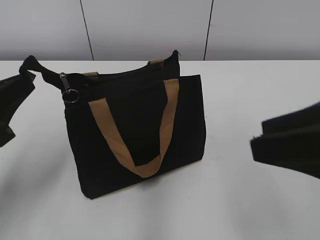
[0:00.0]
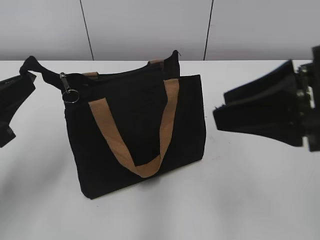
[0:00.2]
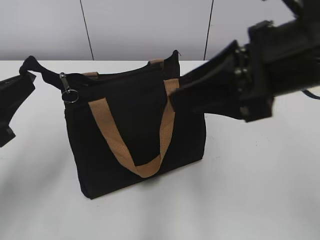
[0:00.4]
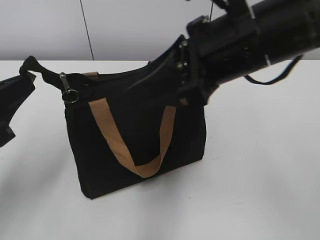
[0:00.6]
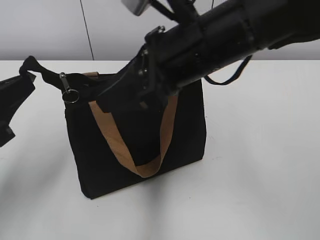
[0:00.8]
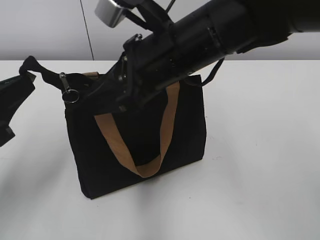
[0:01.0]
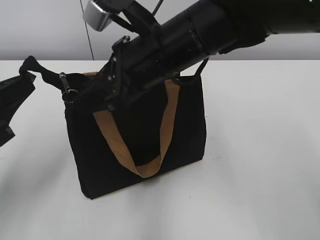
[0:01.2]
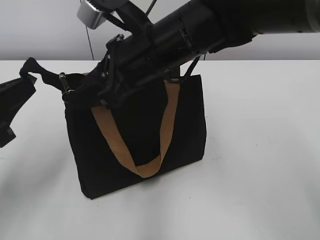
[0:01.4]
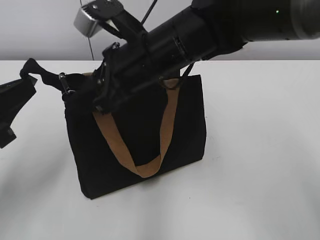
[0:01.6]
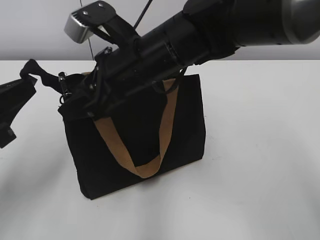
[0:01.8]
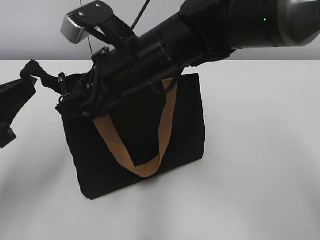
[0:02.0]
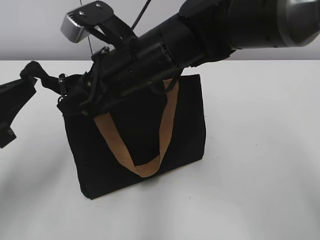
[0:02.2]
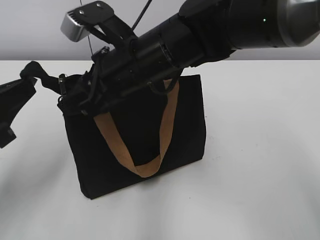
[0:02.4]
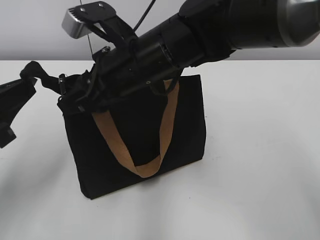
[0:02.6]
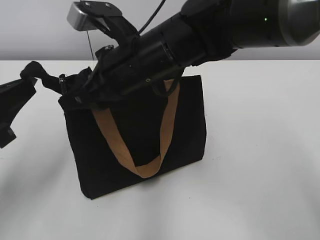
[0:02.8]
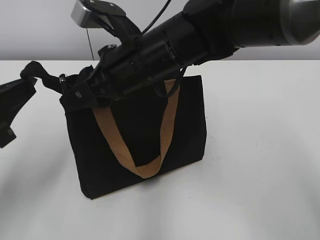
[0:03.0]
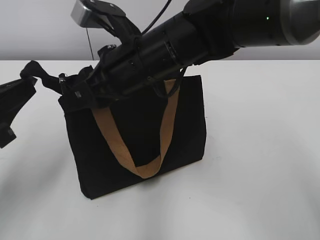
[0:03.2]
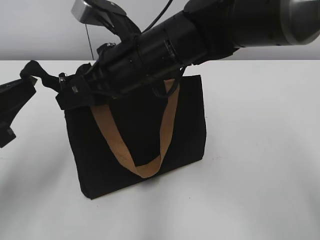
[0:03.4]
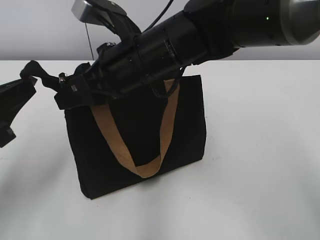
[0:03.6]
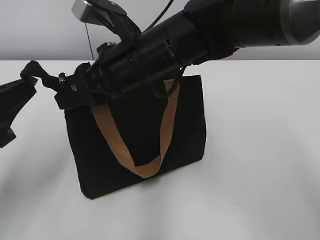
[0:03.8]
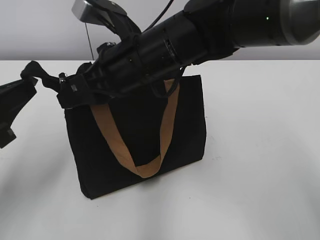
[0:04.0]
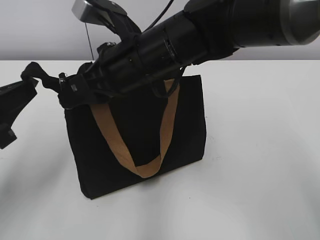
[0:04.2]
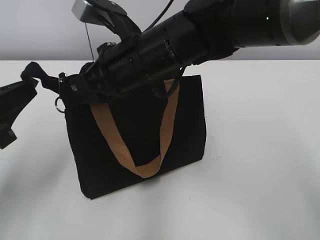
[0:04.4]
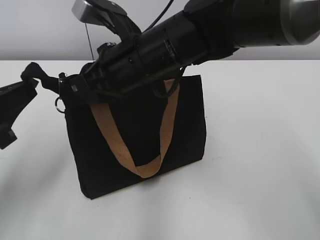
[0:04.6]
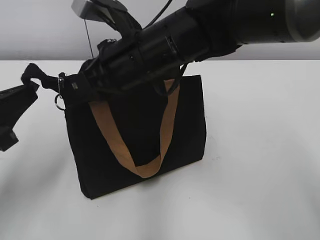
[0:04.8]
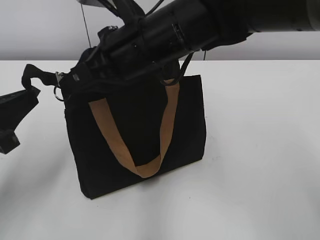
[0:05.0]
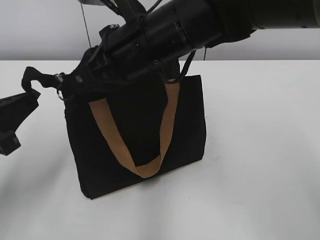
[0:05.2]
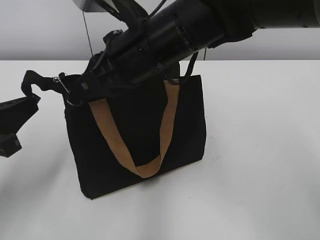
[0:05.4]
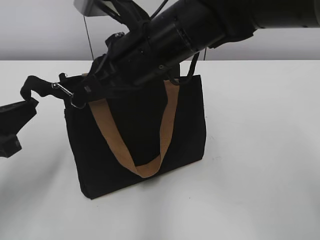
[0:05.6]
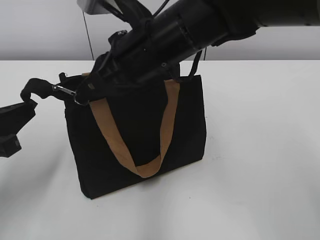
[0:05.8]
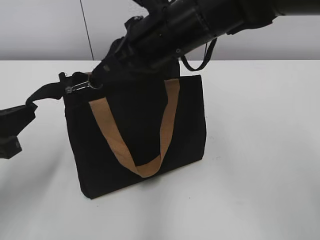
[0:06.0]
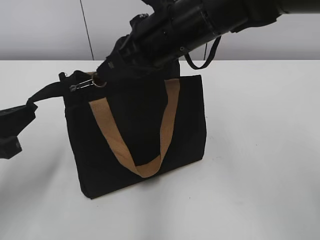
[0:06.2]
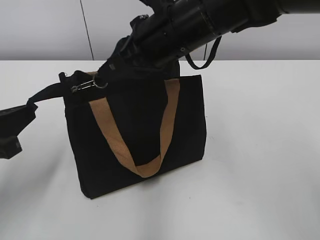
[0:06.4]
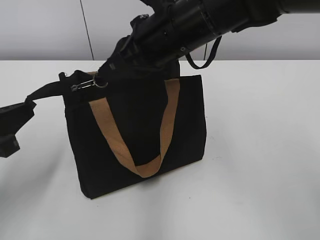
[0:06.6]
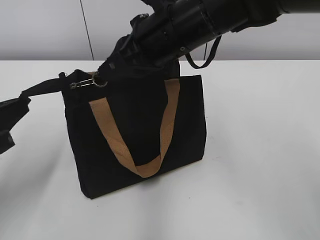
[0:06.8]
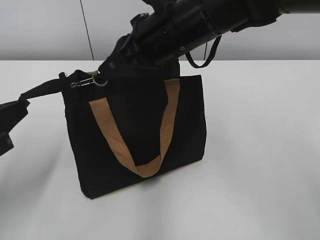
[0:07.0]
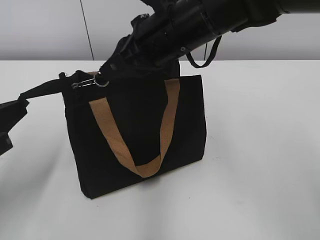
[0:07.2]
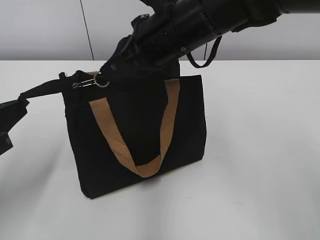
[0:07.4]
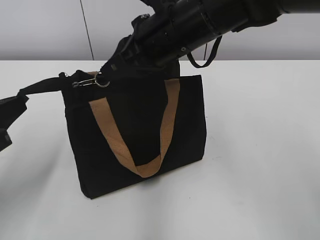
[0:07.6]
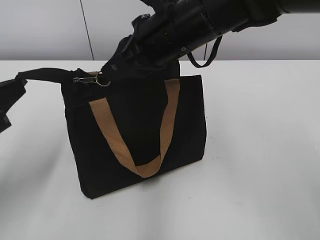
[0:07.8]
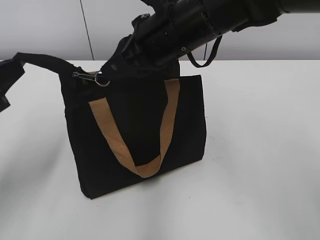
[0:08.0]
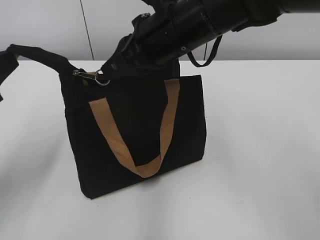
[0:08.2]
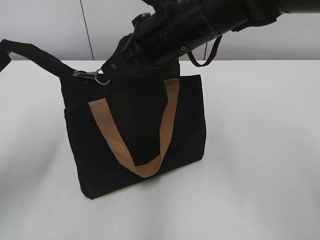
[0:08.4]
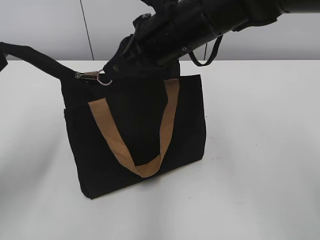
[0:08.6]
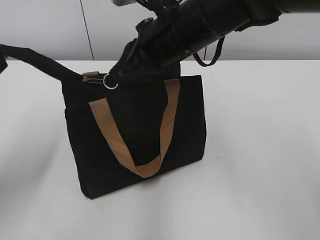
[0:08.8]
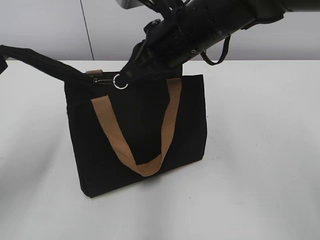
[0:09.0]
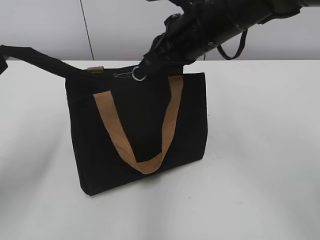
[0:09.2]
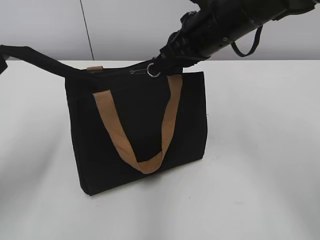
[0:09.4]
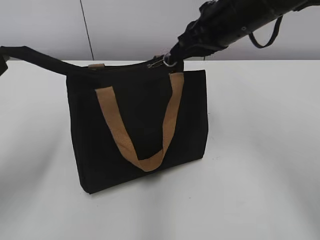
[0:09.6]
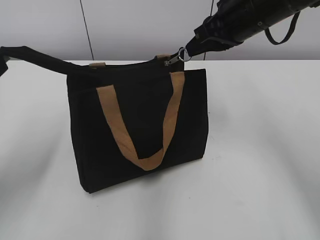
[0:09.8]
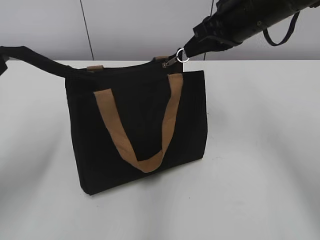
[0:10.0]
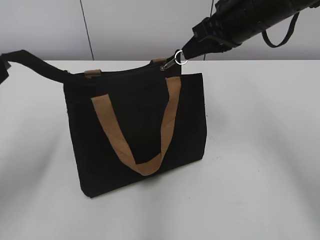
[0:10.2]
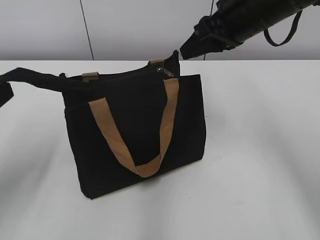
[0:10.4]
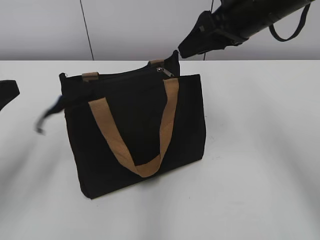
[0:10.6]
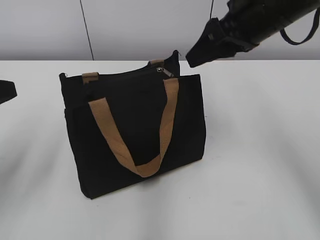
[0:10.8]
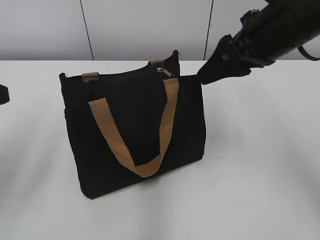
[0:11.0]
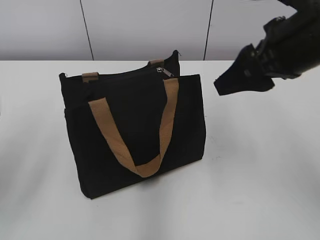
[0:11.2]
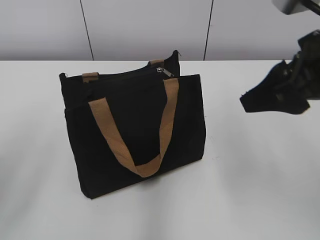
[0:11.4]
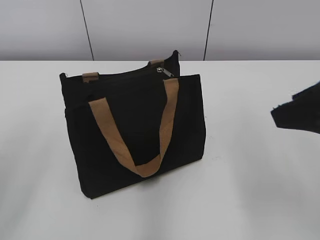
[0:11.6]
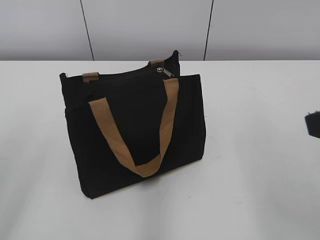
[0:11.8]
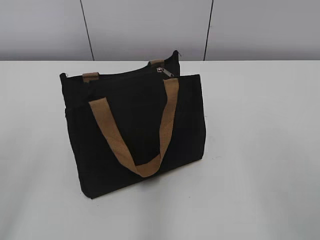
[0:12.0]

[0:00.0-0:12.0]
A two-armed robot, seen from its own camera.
Step, 0:00.0 to 0:10.2: Zip up the bag with your right hand.
Step, 0:10.4 to 0:10.6: Grab the zipper with your left hand.
0:00.0 to 0:01.6: The right gripper goes some 25 cm to the left and forward.
0:01.6 to 0:03.0: The grippers stay close to where they were, moving slightly.
0:03.0 to 0:04.4: The right gripper closes its fingers.
0:04.4 to 0:06.0: The grippers move only a little.
0:06.0 to 0:07.6: Neither gripper changes place.
0:07.6 to 0:09.0: The left gripper travels upward by roughly 5 cm.
0:09.0 to 0:10.4: The right gripper is displaced to the right by some 10 cm, and opens up.
0:10.4 to 0:12.0: The left gripper is displaced backward and upward by some 10 cm, and opens; the right gripper is displaced backward by approximately 25 cm, and opens.

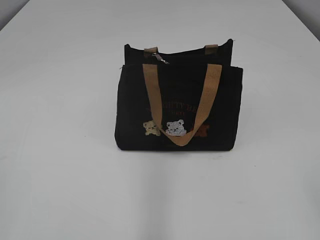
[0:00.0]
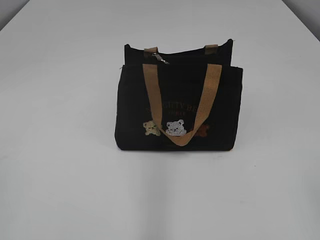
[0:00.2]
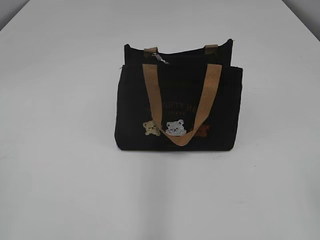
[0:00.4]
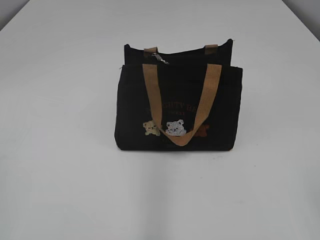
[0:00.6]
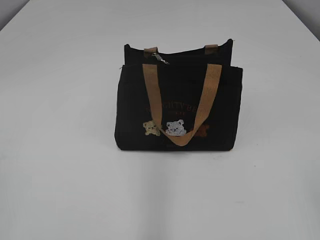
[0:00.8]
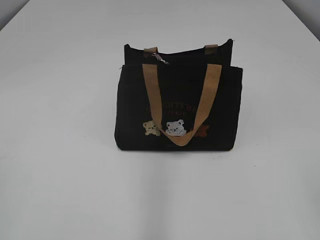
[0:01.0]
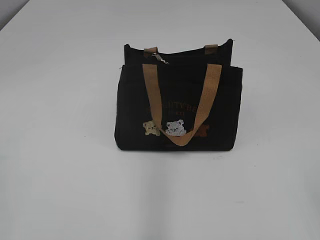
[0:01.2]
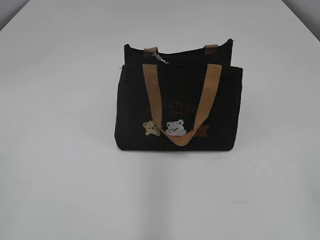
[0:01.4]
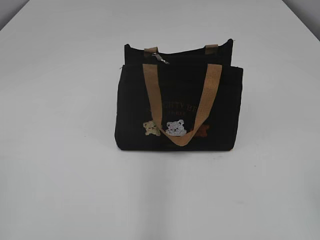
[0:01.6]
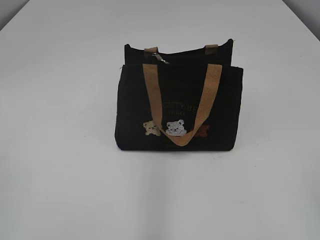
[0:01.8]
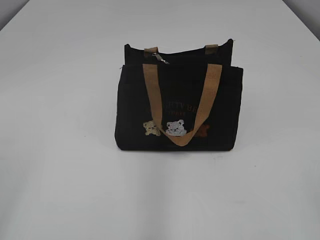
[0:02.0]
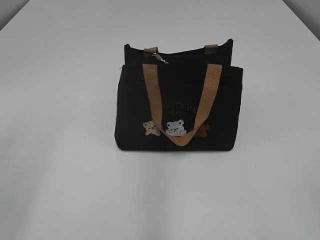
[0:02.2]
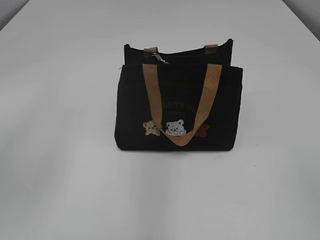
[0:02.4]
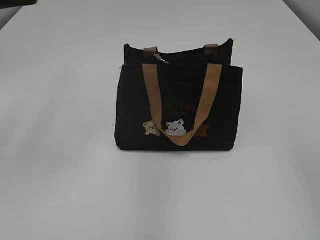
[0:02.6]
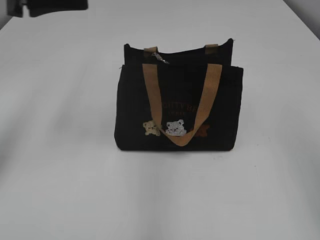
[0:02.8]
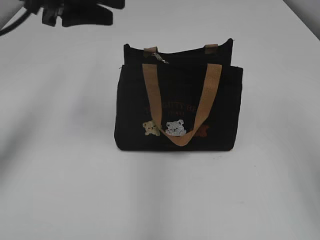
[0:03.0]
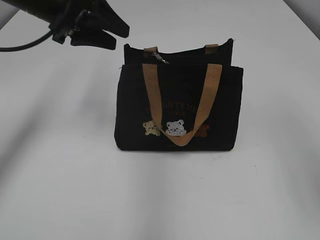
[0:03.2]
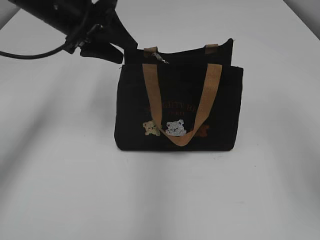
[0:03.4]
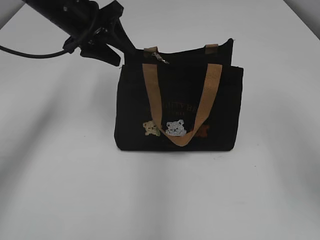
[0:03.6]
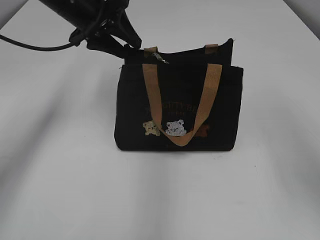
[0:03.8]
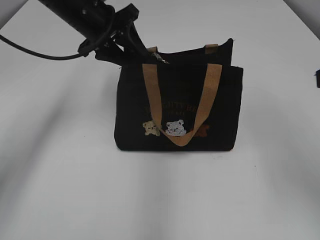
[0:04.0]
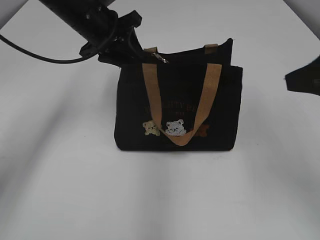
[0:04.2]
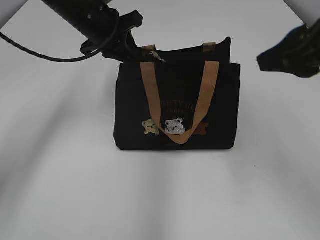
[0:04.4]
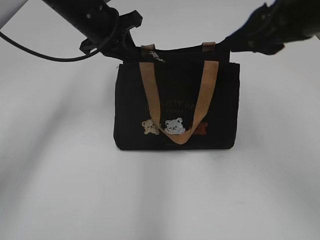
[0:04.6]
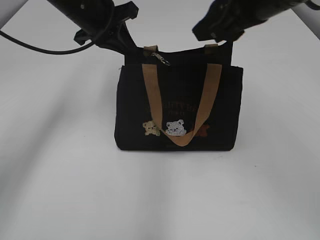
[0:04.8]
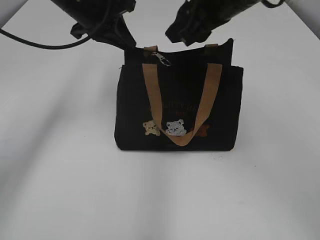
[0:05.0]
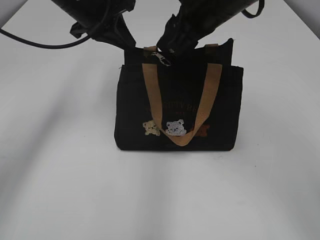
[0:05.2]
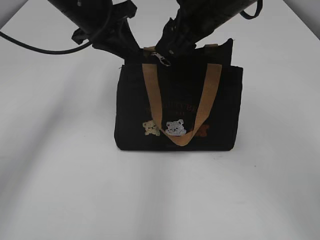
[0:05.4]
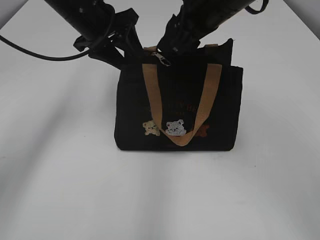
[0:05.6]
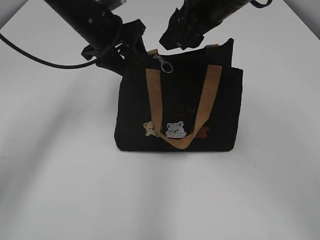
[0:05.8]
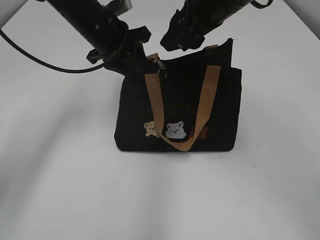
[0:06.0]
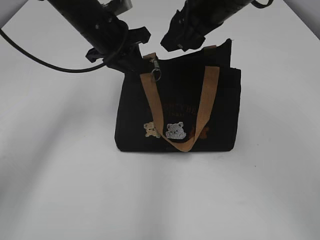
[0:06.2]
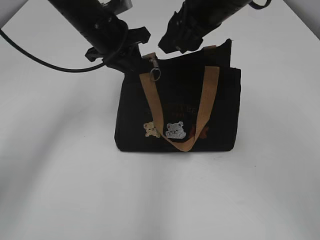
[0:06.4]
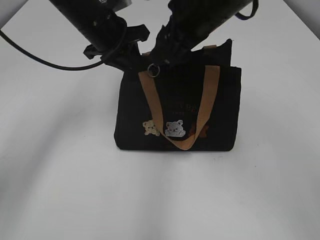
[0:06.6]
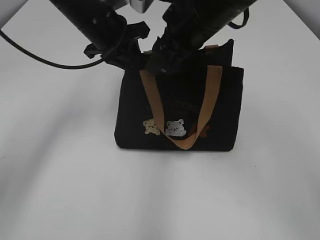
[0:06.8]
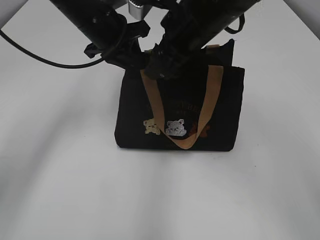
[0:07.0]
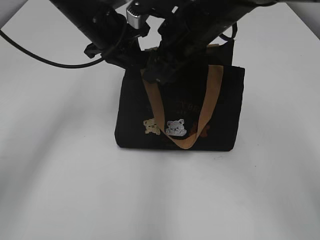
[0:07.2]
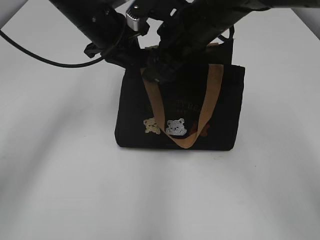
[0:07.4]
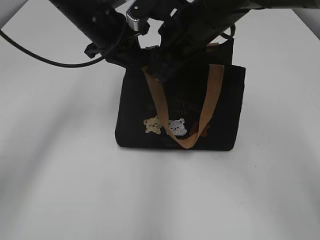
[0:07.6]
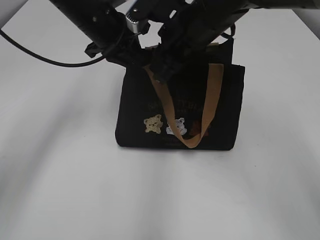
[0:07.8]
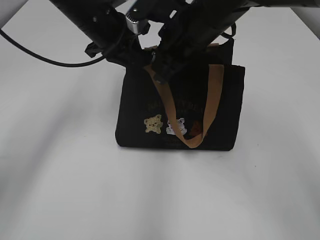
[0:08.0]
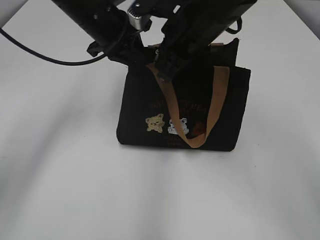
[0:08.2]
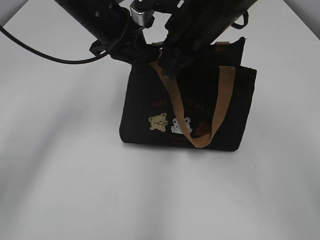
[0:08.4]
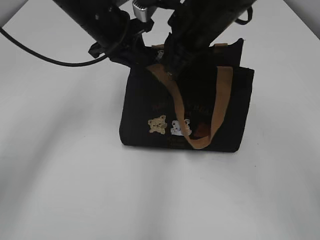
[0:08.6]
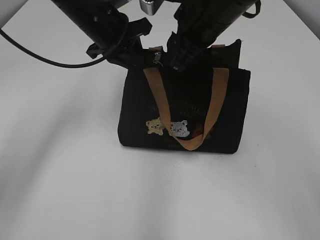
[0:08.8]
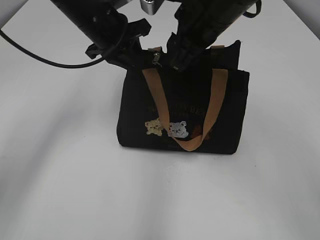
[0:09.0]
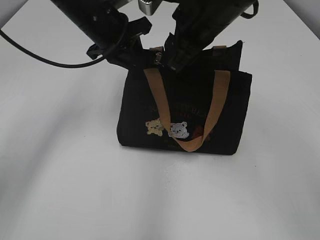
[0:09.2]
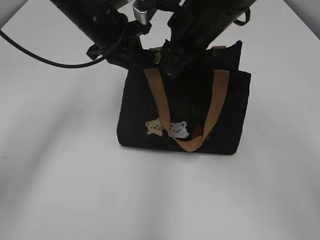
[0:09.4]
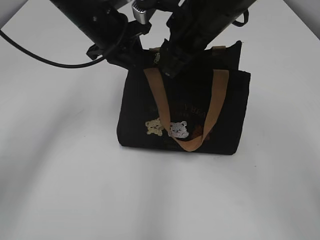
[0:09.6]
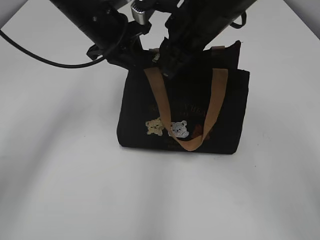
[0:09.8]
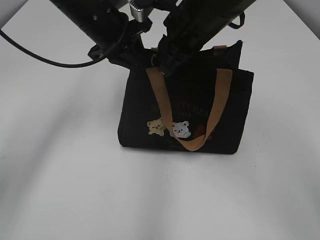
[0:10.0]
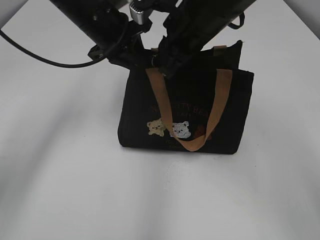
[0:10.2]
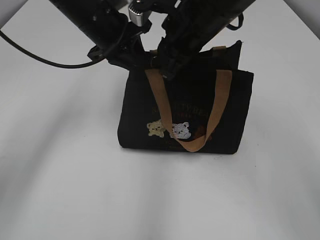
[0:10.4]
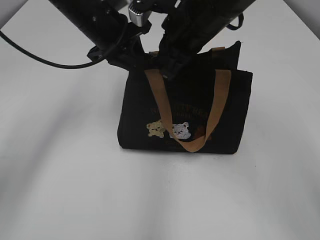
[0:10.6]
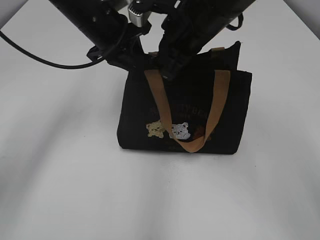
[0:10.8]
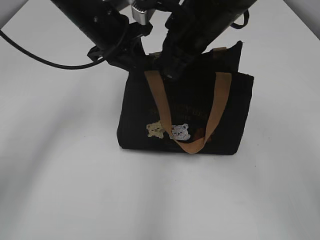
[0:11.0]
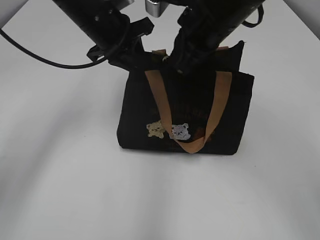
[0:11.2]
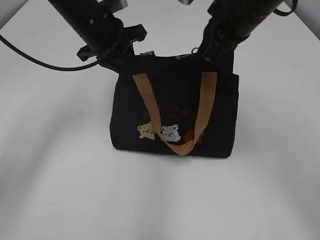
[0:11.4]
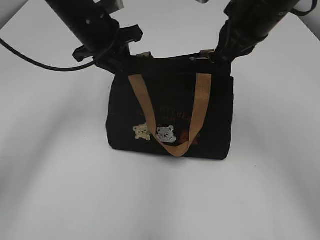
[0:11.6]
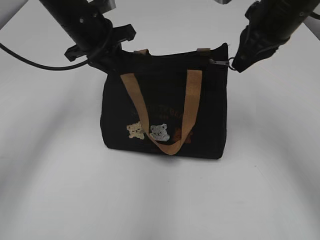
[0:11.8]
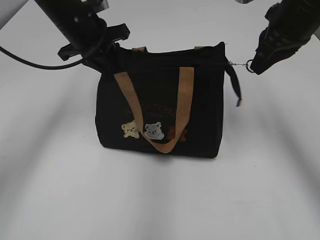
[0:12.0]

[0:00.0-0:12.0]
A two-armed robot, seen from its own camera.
0:01.6 to 0:03.0: The left gripper shifts approximately 35 cm forward, and opens its fingers, while the right gripper moves forward and upward, some 15 cm.
0:03.0 to 0:04.4: The right gripper is displaced forward and to the left by some 15 cm; the left gripper is displaced forward, downward and to the right by some 15 cm, and closes up.
0:04.4 to 0:06.0: The left gripper opens its fingers. Meanwhile the right gripper goes roughly 15 cm forward and to the left.
0:06.0 to 0:07.6: The left gripper closes up; the right gripper moves downward, about 5 cm.
0:07.6 to 0:09.0: The right gripper closes and opens again.
0:09.0 to 0:10.4: There are only small adjustments of the grippers.
0:10.4 to 0:12.0: The right gripper travels to the right by roughly 15 cm.
